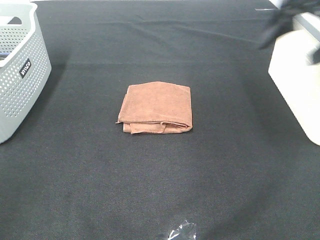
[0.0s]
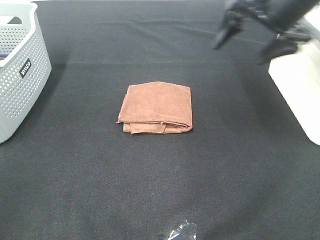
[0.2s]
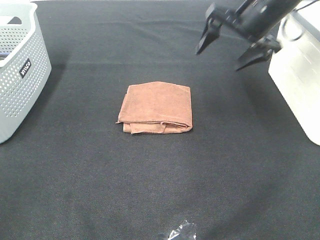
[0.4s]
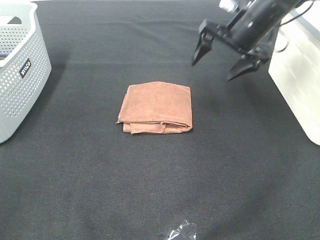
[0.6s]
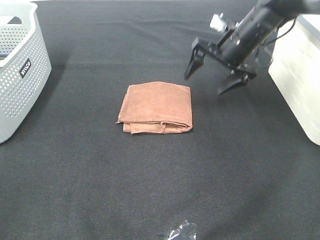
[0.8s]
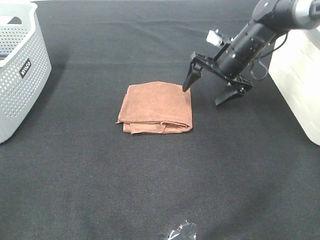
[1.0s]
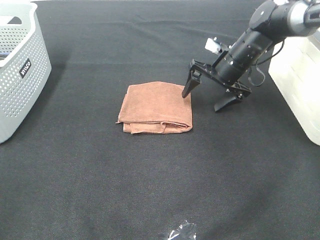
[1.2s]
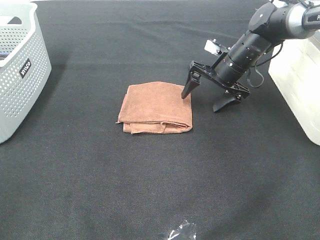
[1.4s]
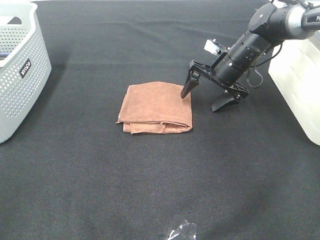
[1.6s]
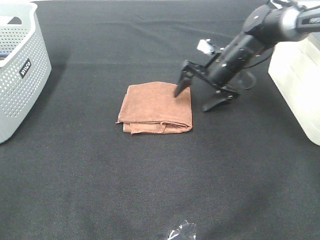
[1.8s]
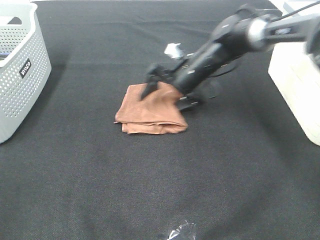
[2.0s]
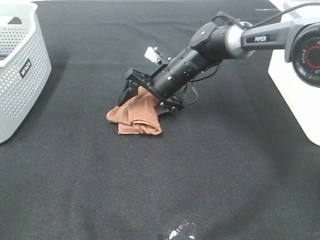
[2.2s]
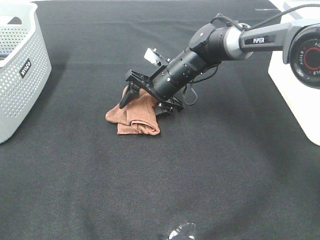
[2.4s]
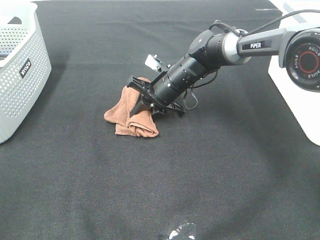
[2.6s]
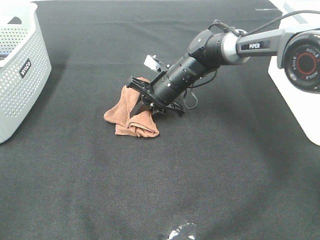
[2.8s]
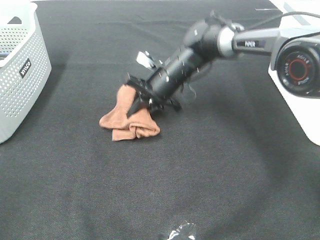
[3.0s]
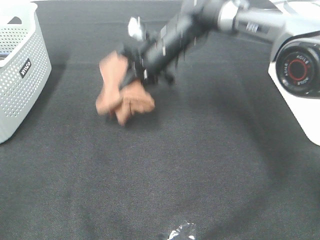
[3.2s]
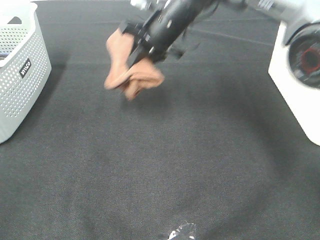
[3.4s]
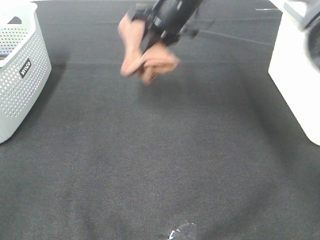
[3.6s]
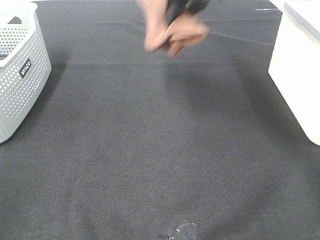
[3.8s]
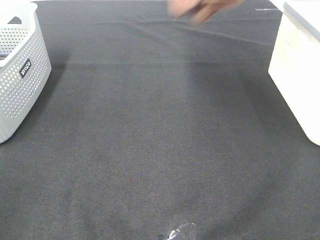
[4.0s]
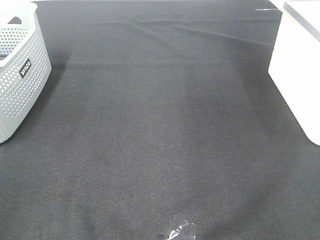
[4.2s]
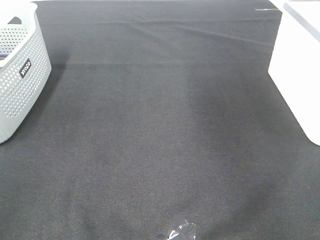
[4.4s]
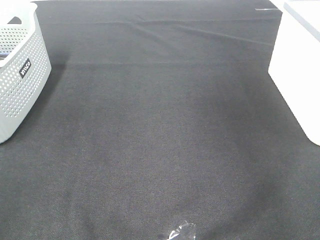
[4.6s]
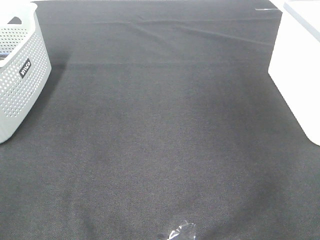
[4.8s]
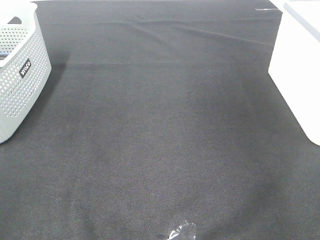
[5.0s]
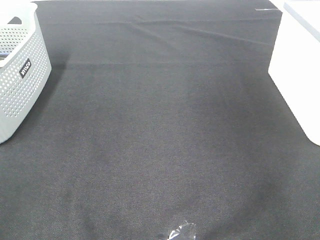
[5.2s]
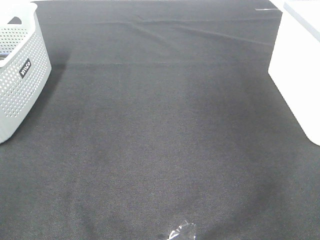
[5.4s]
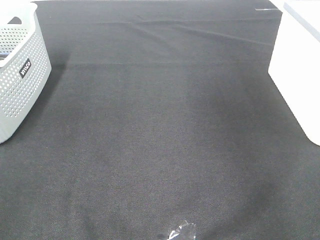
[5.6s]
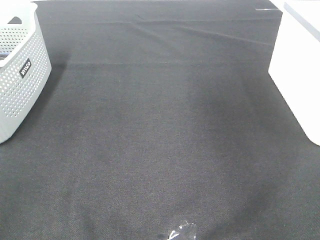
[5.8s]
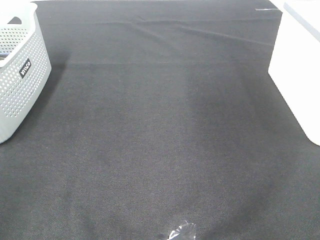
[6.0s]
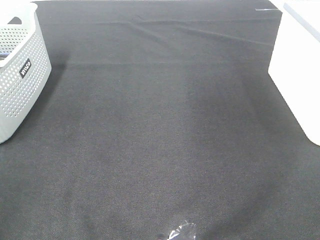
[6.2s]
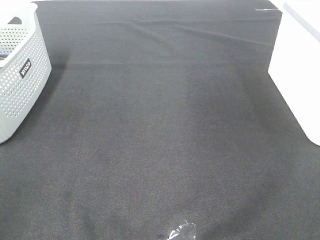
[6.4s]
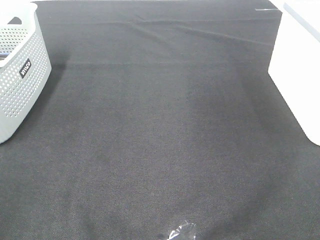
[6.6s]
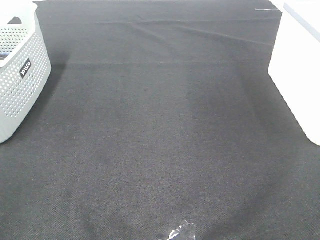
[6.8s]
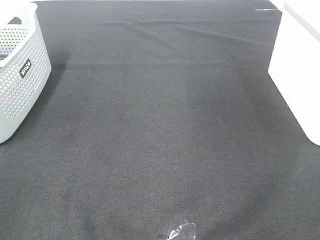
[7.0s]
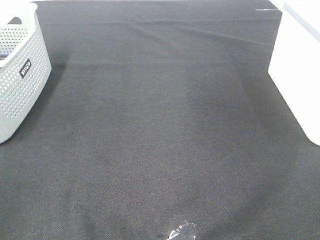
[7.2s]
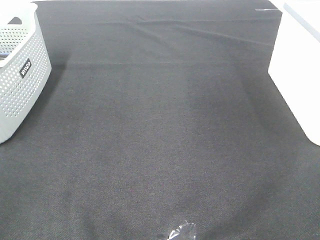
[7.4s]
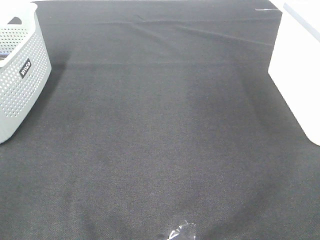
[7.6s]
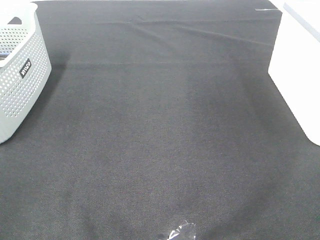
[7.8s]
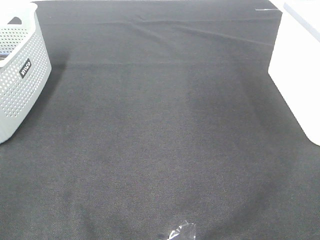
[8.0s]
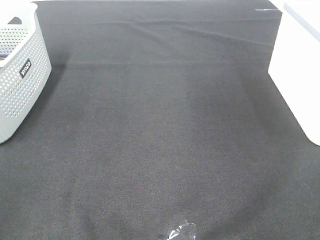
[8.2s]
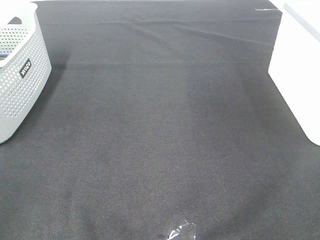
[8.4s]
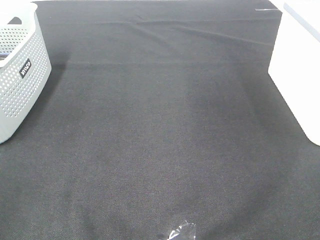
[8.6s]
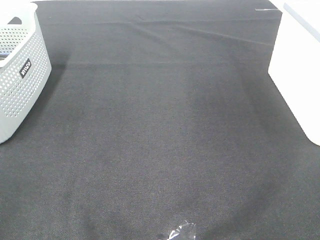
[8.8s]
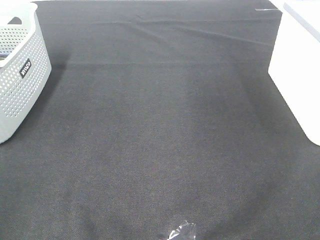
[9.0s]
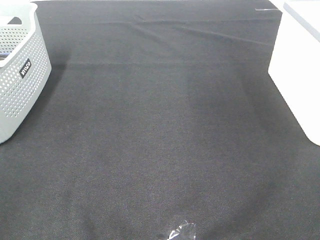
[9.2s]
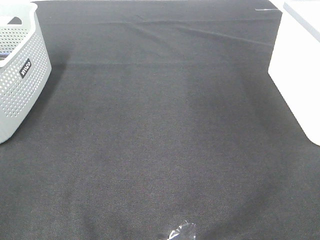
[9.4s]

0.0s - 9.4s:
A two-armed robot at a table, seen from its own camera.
Step, 0.0s - 2.6s: Right hand: grab the folded brown towel.
Step, 2.8s - 5.2s: Right hand: place the brown towel in right basket.
0.0s - 1.6s: The right gripper heads downward and forward, covering roughly 25 cm.
1.6s - 3.2s: The right gripper moves to the left and upward, some 15 cm, and closes up.
3.2s - 4.8s: The right gripper travels to the right and upward by approximately 40 cm.
7.8s - 9.4s: The two grippers keep their place.

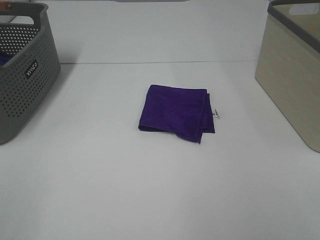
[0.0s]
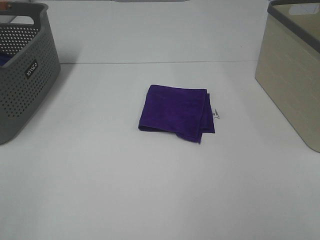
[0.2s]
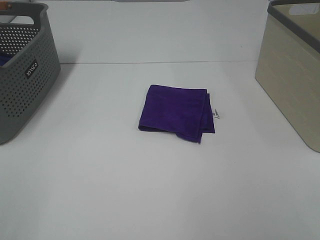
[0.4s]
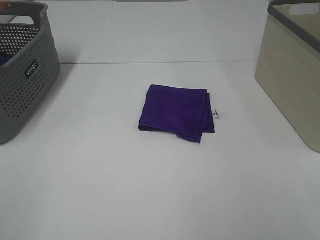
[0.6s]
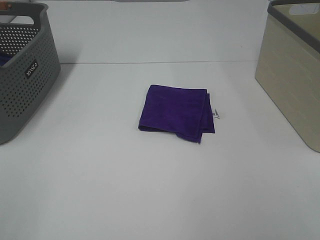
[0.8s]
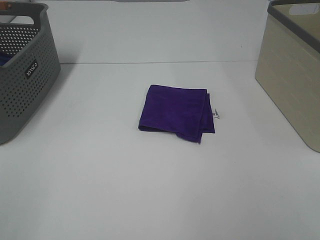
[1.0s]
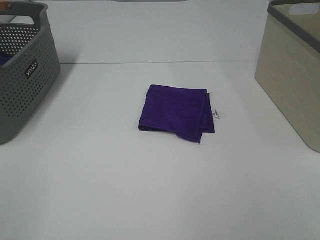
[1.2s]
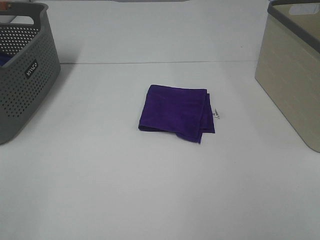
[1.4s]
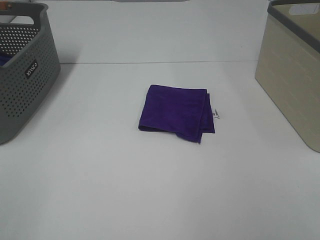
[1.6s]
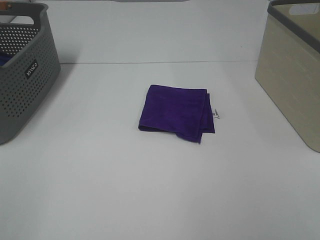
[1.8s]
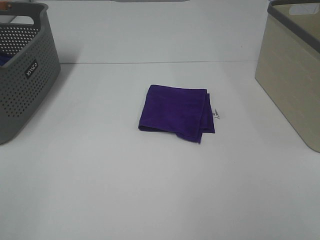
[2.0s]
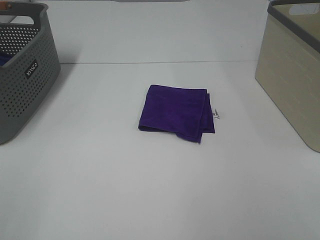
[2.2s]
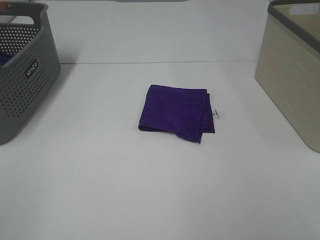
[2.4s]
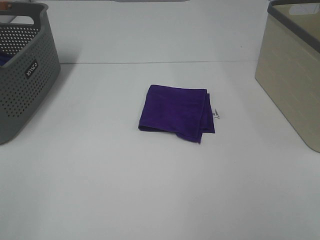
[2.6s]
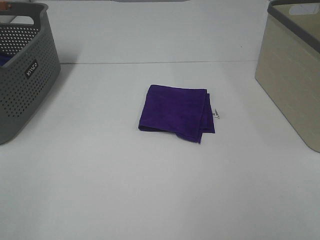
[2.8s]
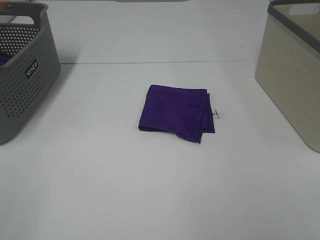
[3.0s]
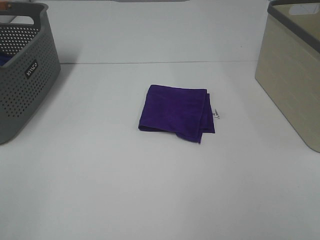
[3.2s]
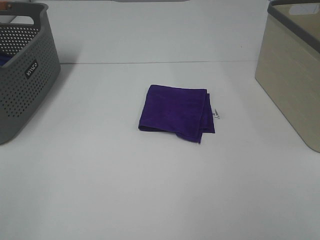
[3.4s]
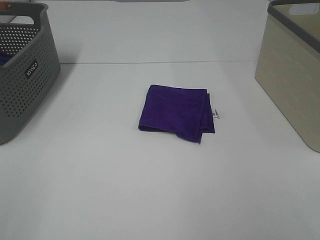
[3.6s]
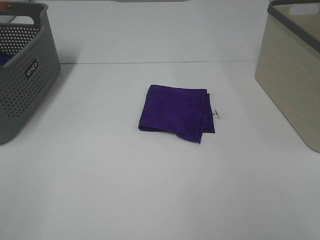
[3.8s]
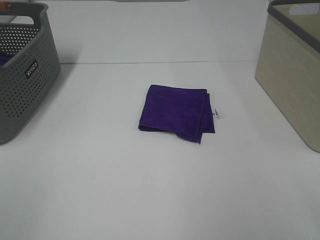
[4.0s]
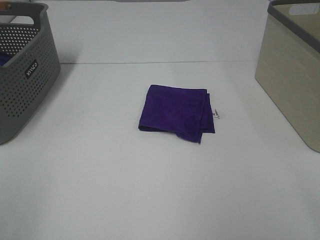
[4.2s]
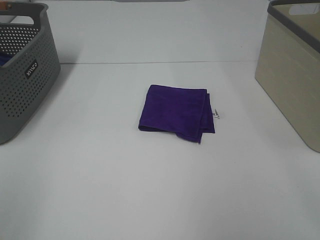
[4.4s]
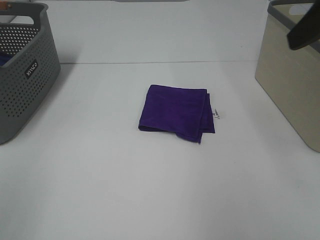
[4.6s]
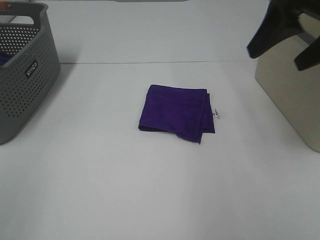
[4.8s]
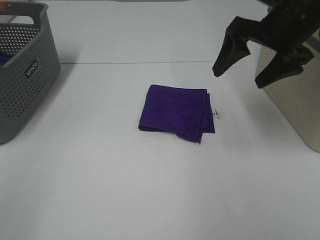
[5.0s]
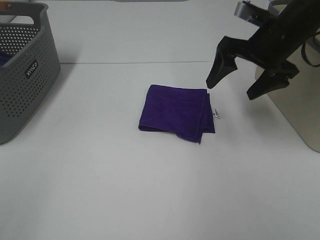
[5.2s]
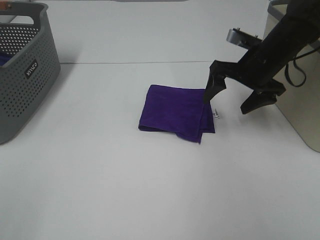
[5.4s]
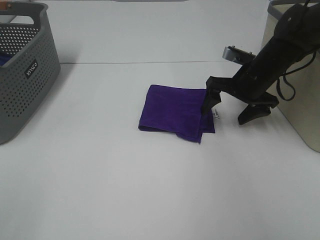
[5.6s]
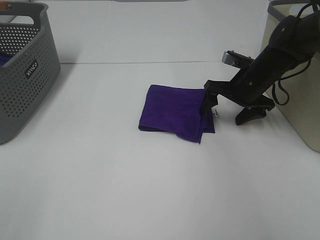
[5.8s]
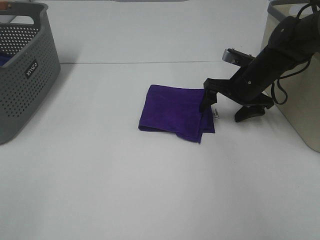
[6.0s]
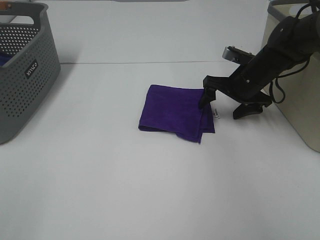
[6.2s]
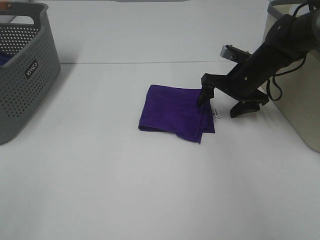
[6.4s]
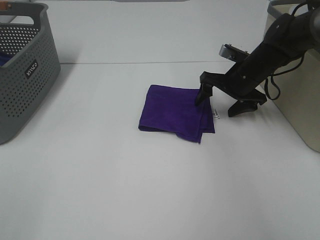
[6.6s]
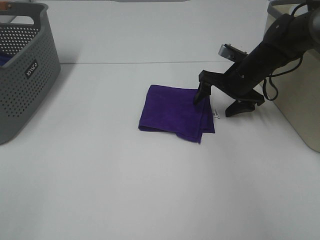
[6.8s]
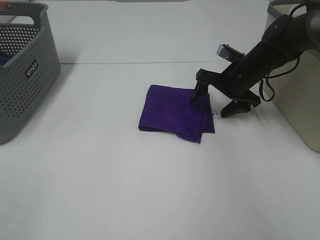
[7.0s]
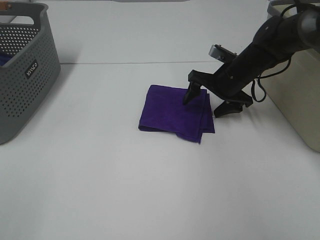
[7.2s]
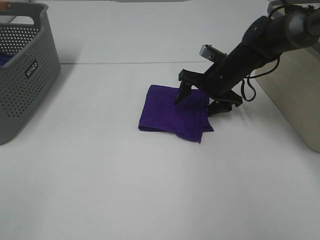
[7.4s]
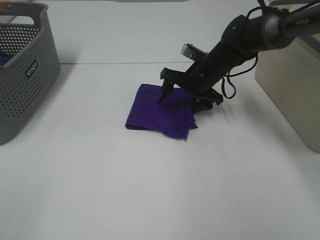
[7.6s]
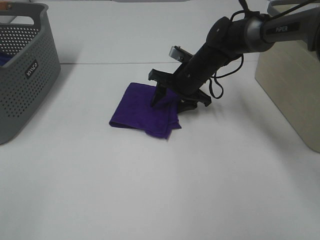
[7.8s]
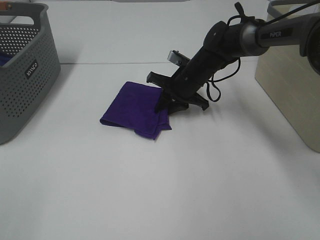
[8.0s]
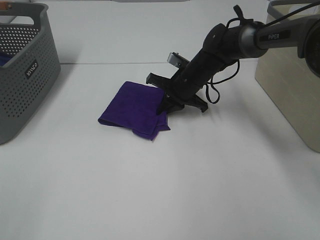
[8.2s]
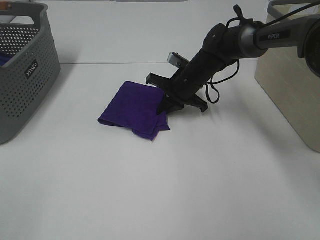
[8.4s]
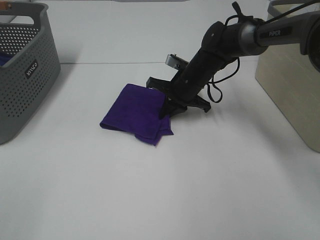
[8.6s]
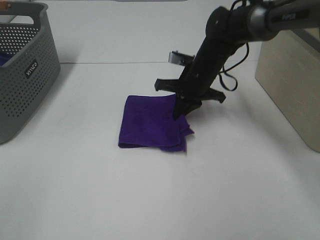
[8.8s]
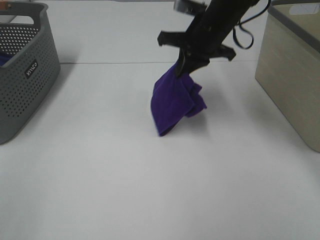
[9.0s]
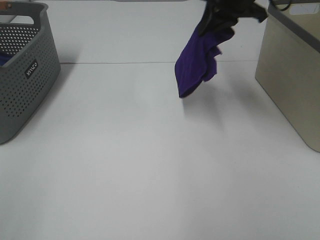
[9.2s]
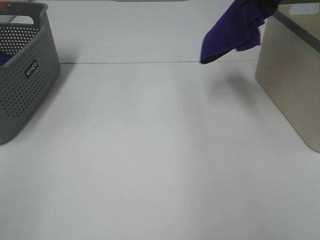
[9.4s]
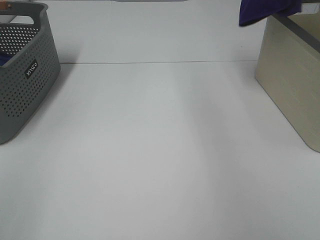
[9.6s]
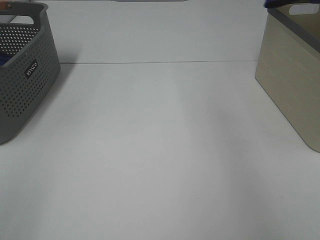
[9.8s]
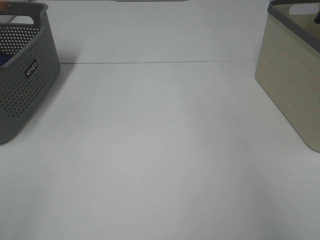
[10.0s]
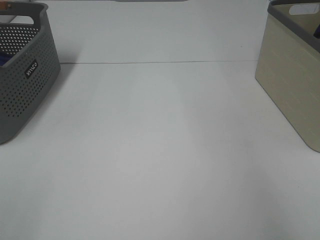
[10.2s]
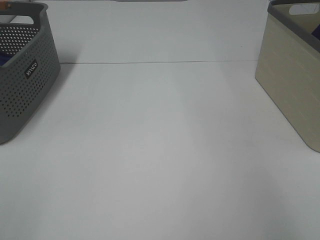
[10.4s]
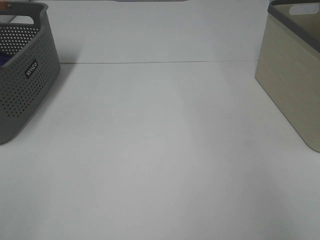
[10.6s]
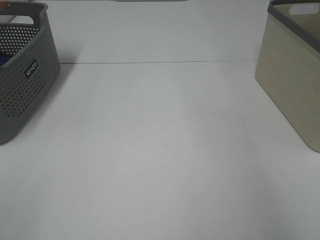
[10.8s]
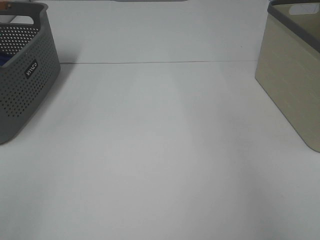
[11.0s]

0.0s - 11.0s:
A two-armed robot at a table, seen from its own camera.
Step, 0.0s - 8.2s: Right hand: grab the folded purple towel.
Step, 8.4s - 10.8s: Right hand: place the purple towel in right basket.
0.0s - 3.2s: The two grippers keep their place.
3.2s - 4.8s: The right gripper is displaced forward by approximately 30 cm.
4.8s - 6.2s: The right gripper is displaced downward and forward by some 25 cm.
6.2s - 7.8s: The right gripper heads to the left, covering roughly 10 cm.
7.8s - 9.4s: The right gripper shifts about 30 cm upward and to the right, and closes up.
9.4s - 11.0s: The right gripper is displaced to the right by approximately 15 cm, and opens.

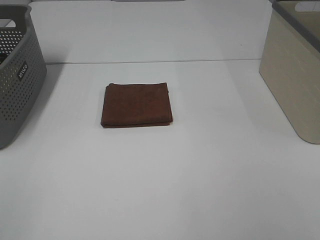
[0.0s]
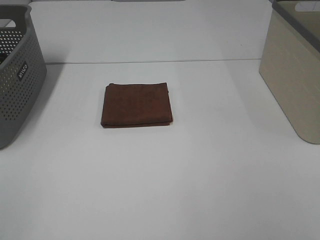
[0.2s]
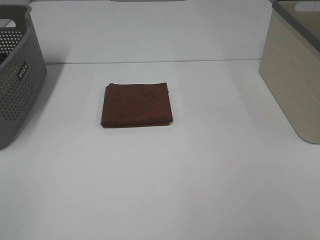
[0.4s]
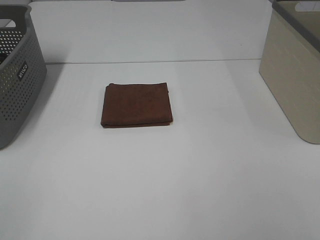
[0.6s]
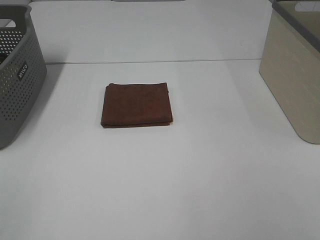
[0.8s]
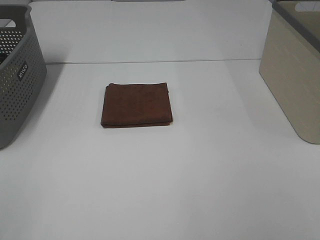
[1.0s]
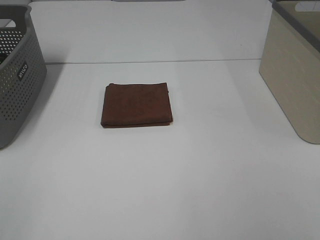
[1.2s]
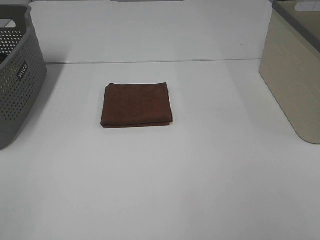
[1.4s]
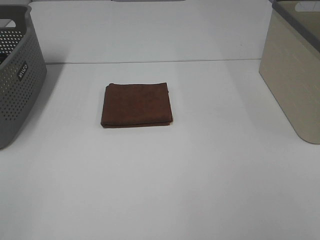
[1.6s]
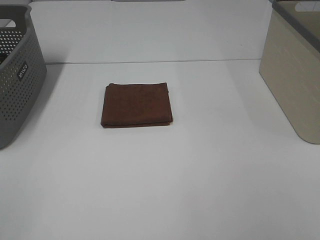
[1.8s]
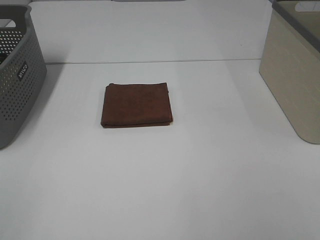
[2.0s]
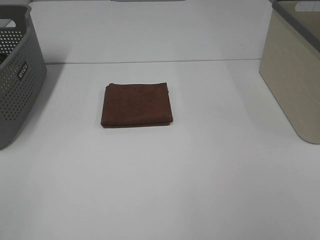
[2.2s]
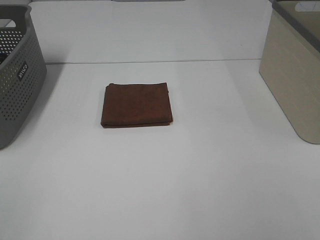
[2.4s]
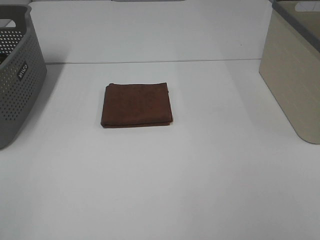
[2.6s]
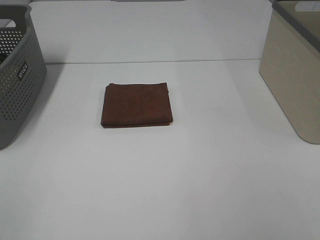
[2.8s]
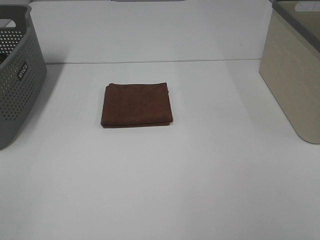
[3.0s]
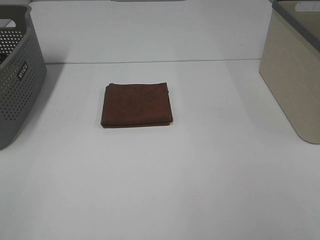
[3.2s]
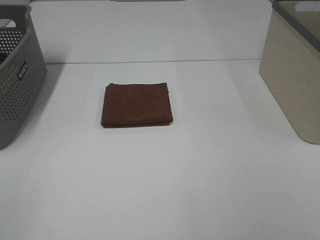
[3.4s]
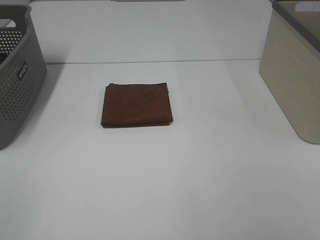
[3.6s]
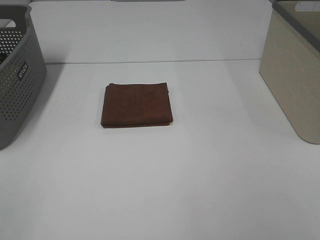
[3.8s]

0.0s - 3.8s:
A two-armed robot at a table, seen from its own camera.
0.0s - 3.8s: Neither gripper changes place.
